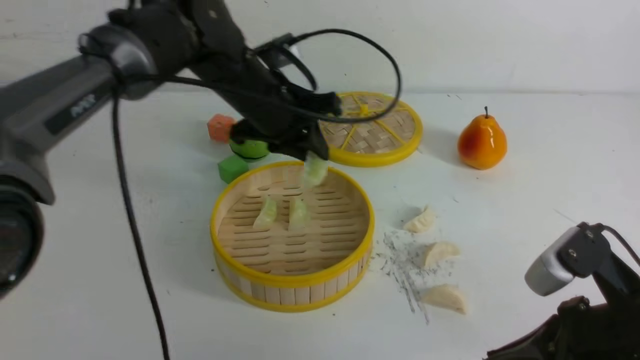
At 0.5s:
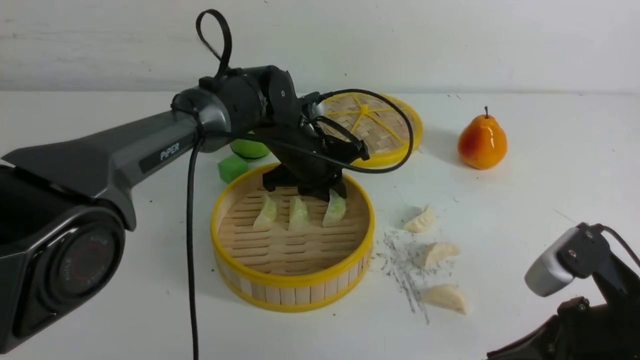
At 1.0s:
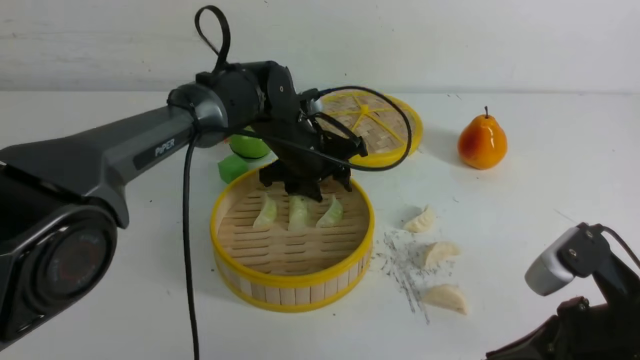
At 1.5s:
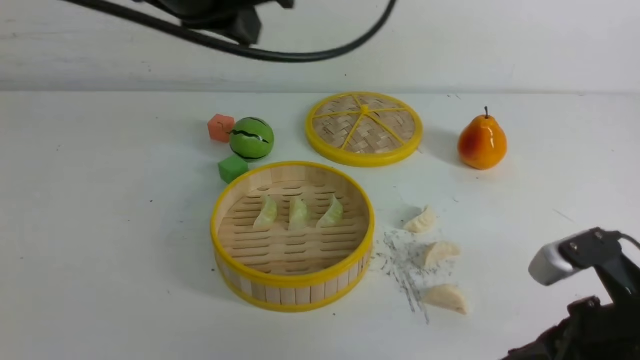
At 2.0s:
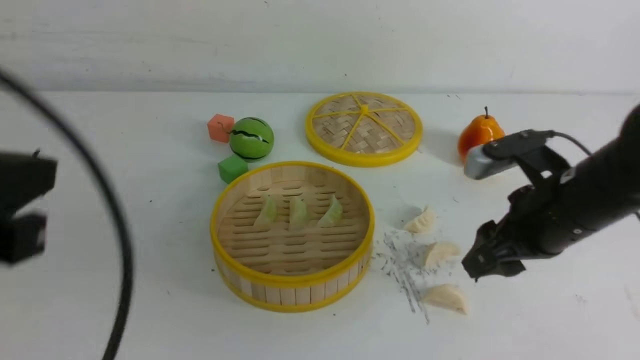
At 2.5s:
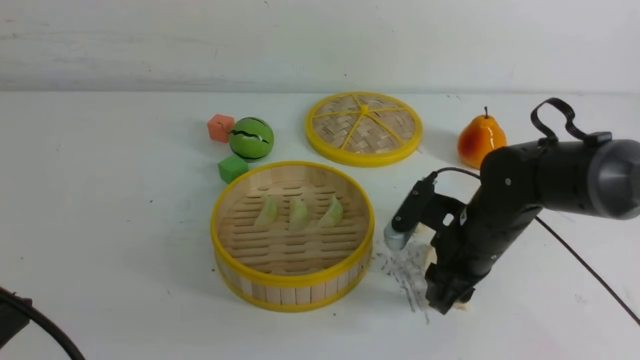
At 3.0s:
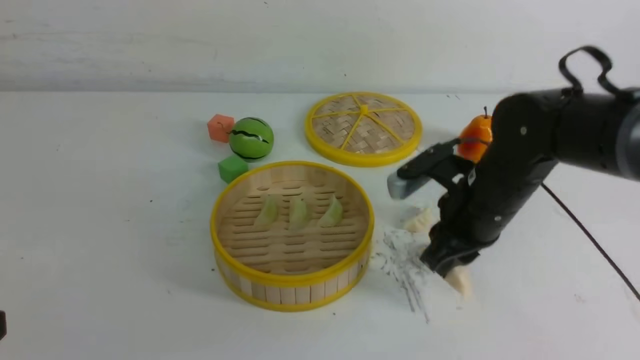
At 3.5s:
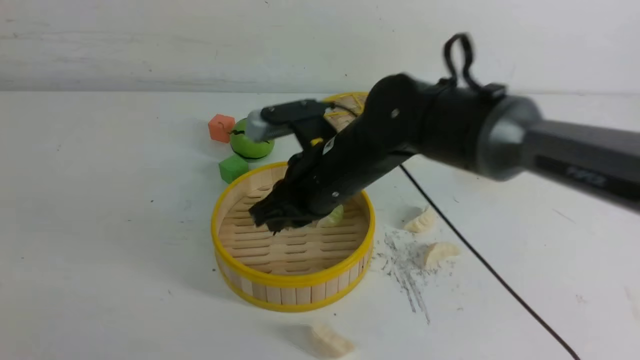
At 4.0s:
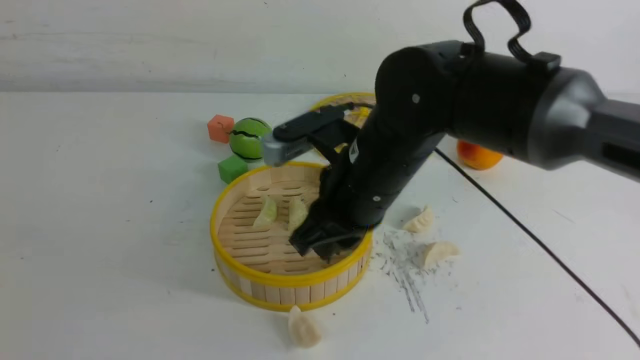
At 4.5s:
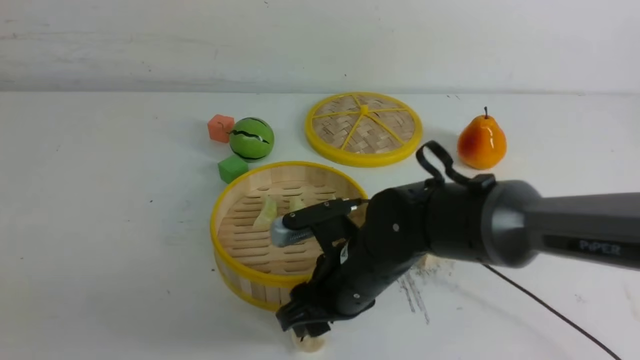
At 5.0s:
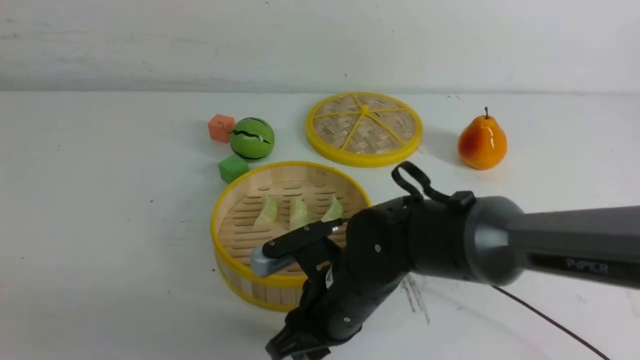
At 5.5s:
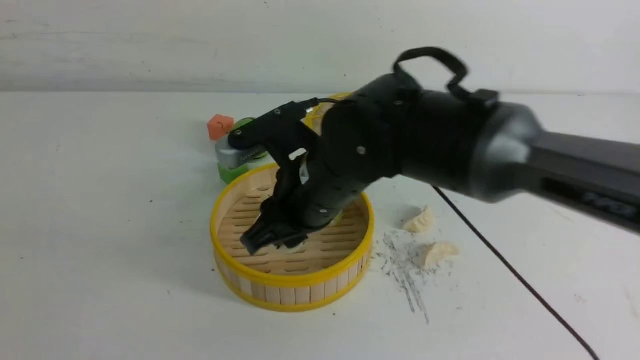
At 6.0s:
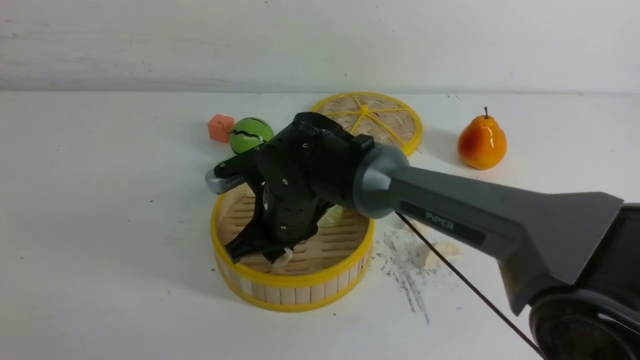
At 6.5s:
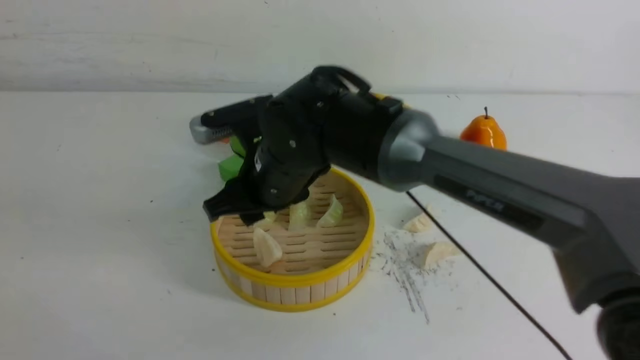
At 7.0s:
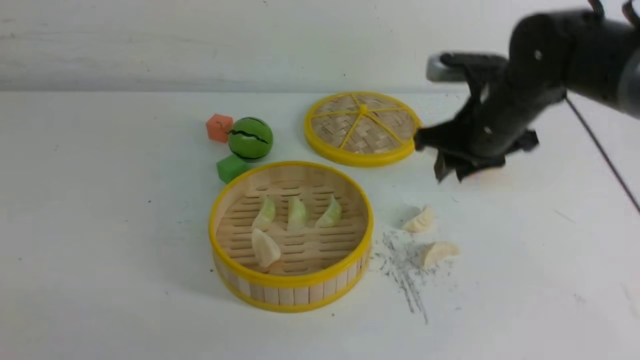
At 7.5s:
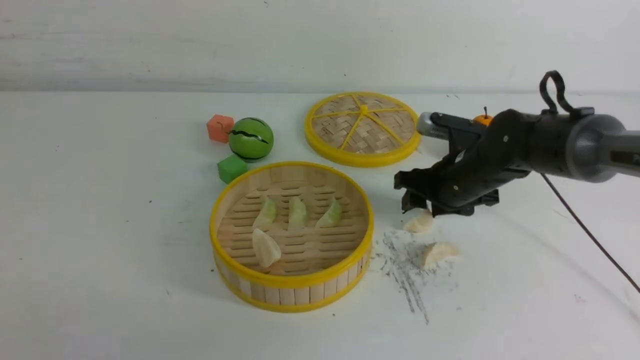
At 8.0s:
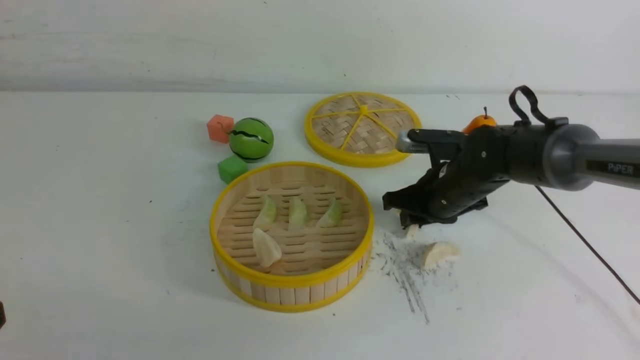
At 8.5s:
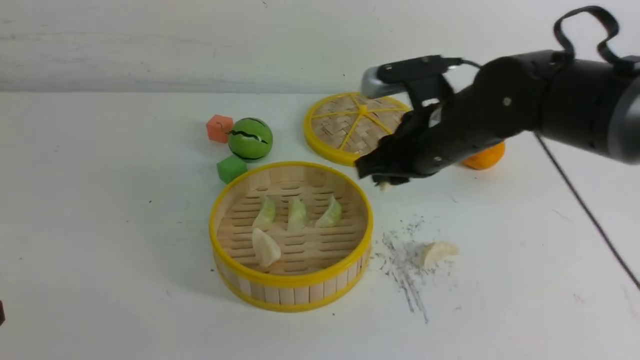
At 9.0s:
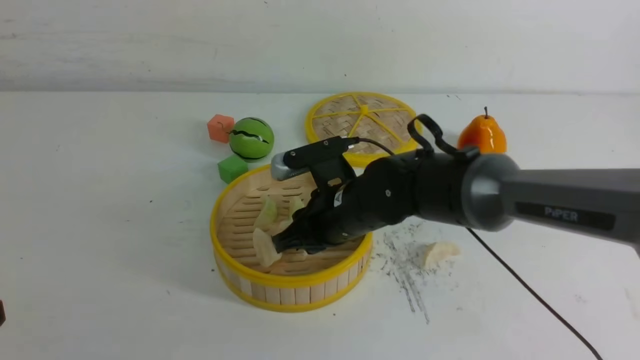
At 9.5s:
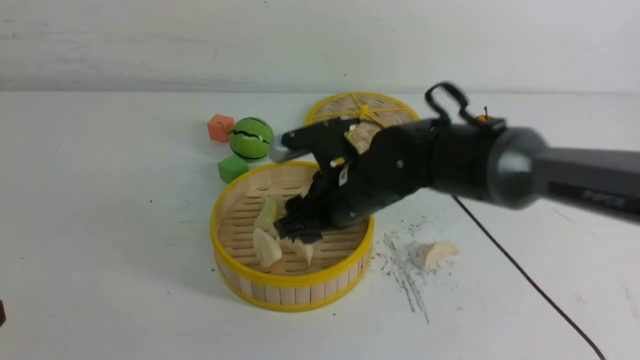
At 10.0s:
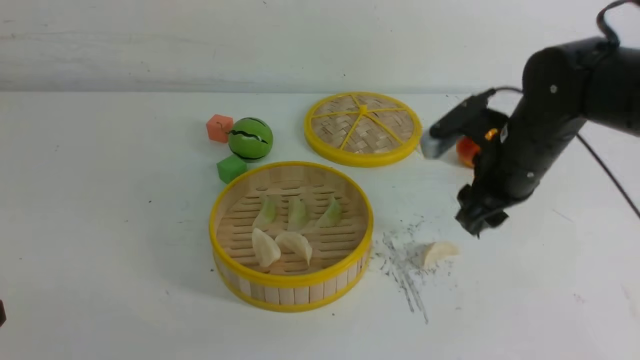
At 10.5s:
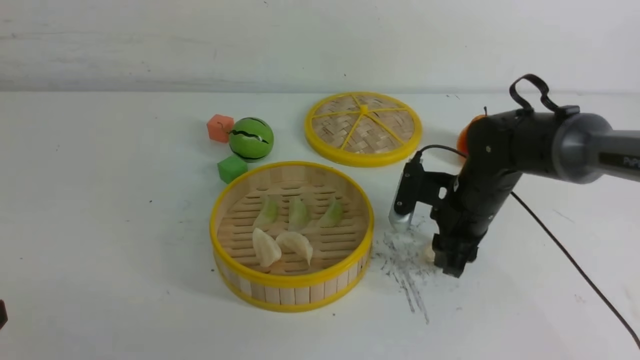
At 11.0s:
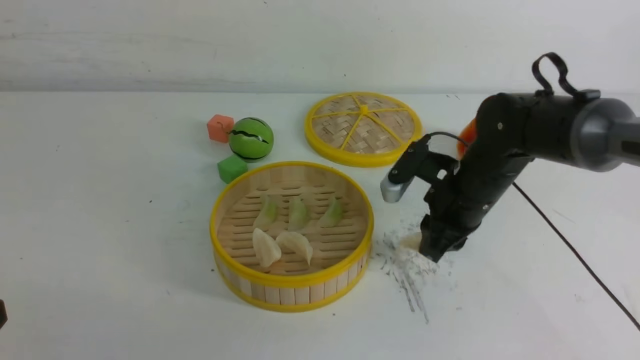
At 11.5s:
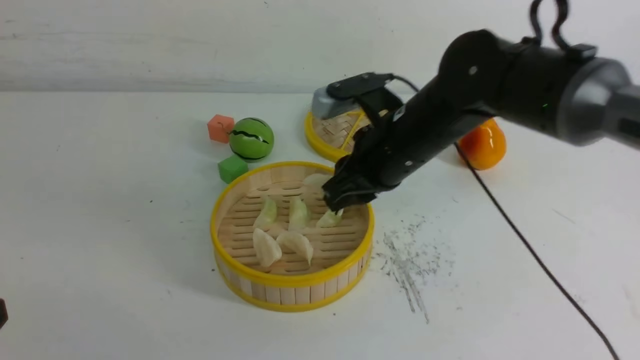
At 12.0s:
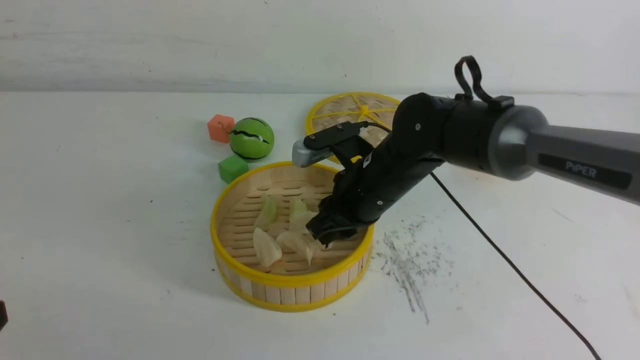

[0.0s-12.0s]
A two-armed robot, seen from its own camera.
Task of the whole recording: put the dumplings into the steamer on the white table.
Step, 0.0s to 1.0s: use the left arm to put the dumpling into the steamer.
Step, 1.5s to 2.5s: use the right arm to grab a dumpling.
Step, 3.0s to 6.5s: use the right arm to put the dumpling into the steamer.
Step, 7.0s to 8.0s: use the right arm to grab a dumpling.
Step, 8.5s to 9.0s: use the right arm to put the dumpling into the steamer.
Step, 10.0s to 10.5s: use the right arm to grab a dumpling.
0.0s to 2.0s: The left gripper heads backward and to the left, covering some 35 cm, and closes its fingers, while the right gripper goes approximately 15 cm forward, and opens its fingers.
2.0s to 4.0s: The right gripper travels to the left by about 15 cm, and closes its fingers. Meanwhile the left gripper heads downward and backward, covering some 15 cm.
4.0s to 6.0s: The right gripper goes about 10 cm to the left and downward.
6.0s to 8.0s: The right gripper heads to the right, covering roughly 20 cm.
8.0s to 10.0s: The right gripper travels upward by approximately 10 cm, travels to the left and back again, about 15 cm each way, and opens.
10.0s to 12.0s: The right gripper goes about 10 cm to the left, and closes up.

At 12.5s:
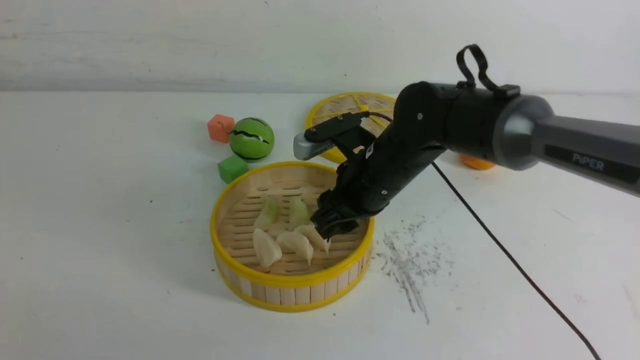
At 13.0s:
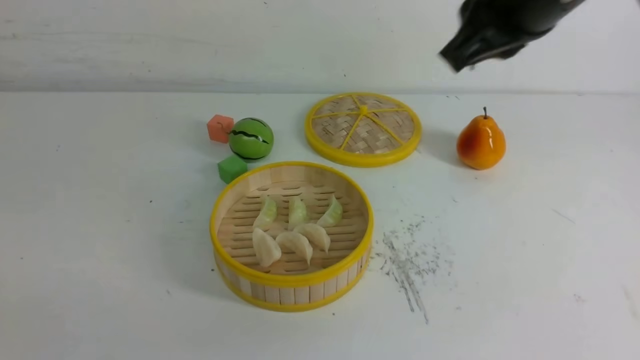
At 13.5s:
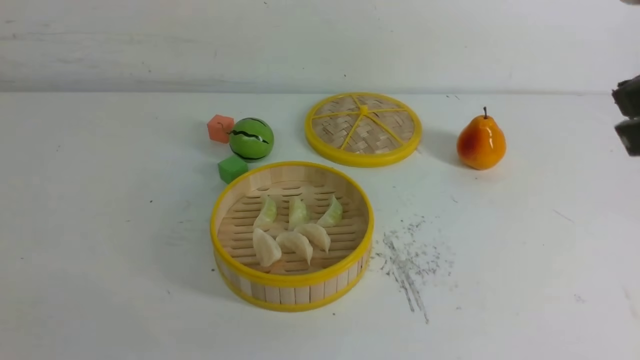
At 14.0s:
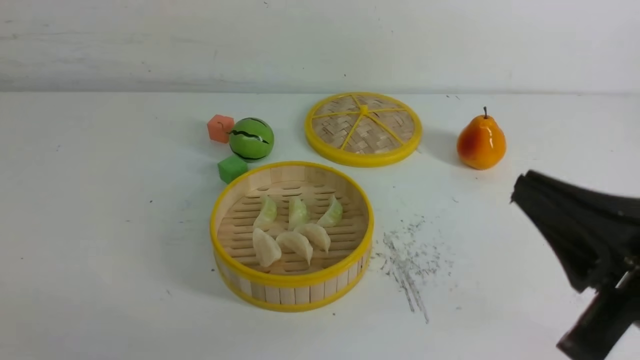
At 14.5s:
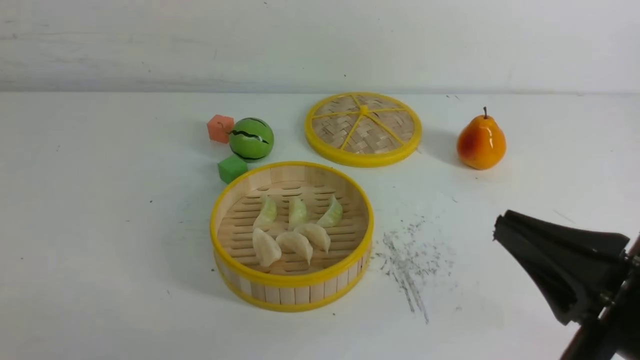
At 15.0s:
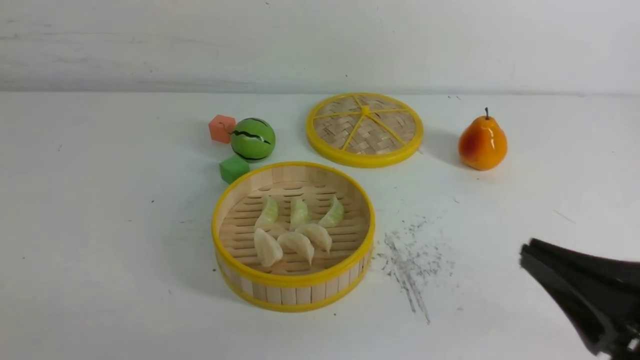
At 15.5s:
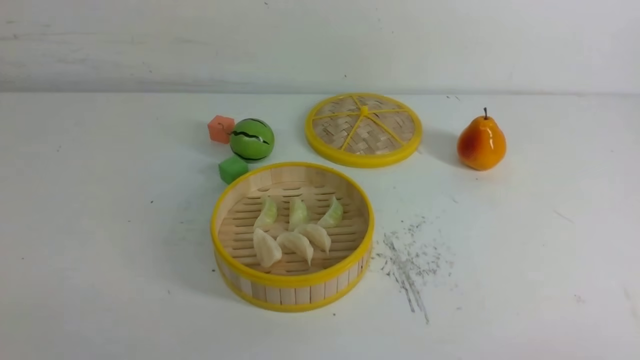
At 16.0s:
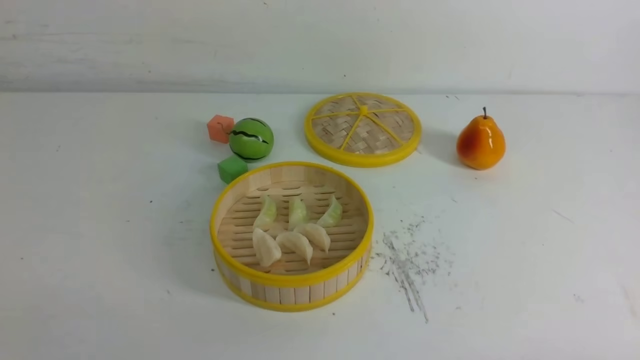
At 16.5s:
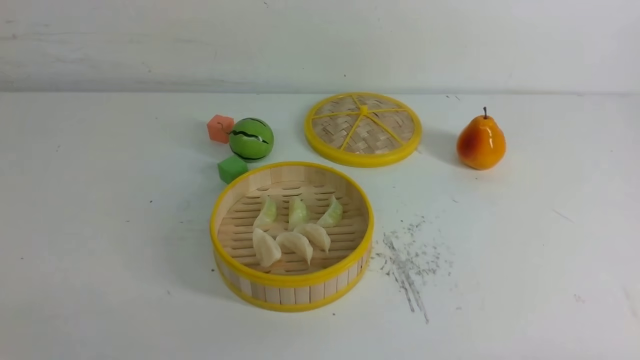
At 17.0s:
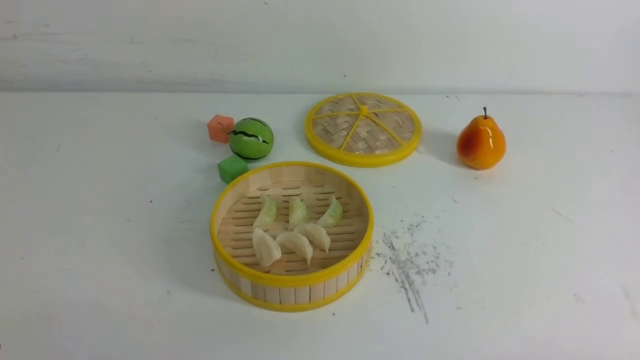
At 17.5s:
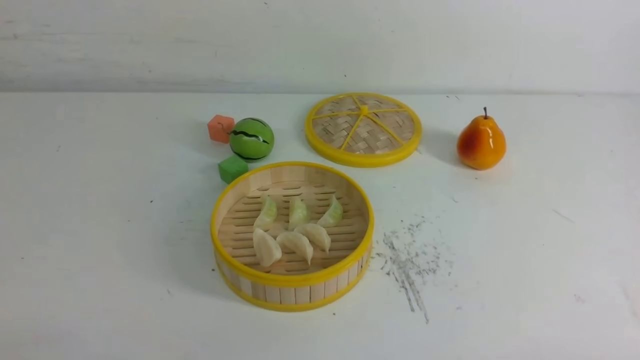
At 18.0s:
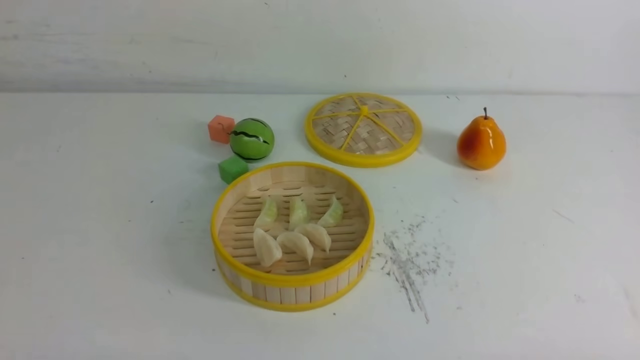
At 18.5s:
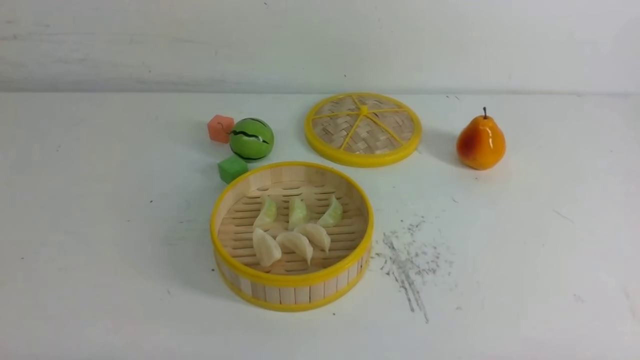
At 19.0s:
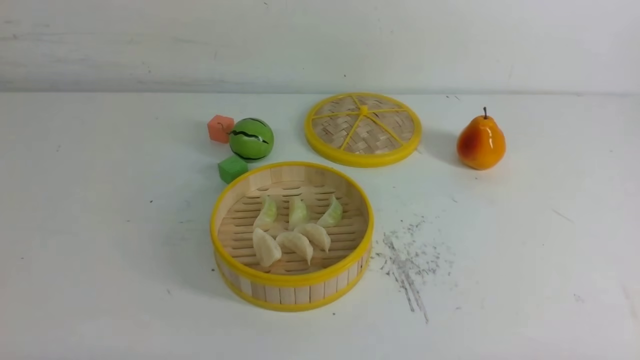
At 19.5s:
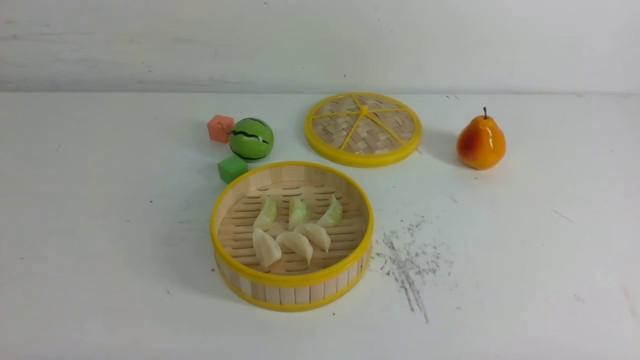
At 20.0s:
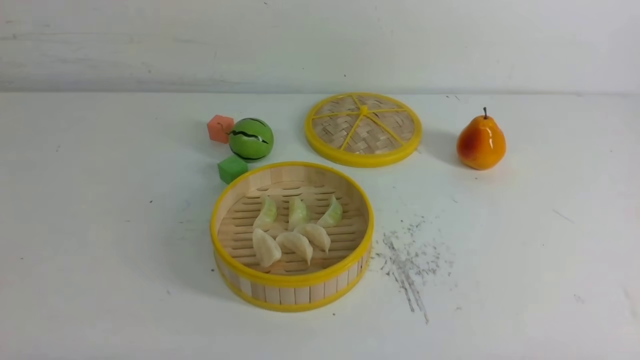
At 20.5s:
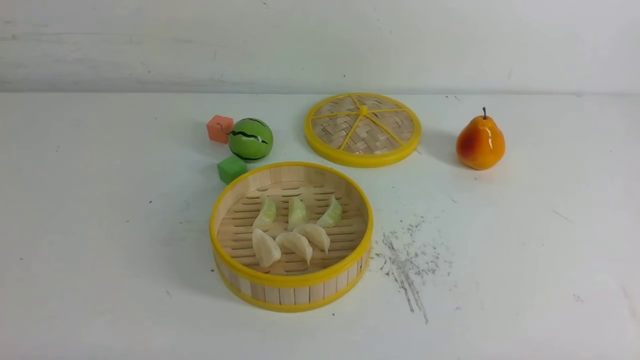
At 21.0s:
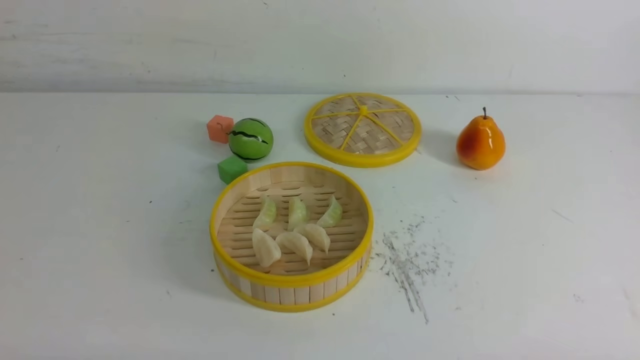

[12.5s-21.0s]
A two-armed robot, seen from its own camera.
Task of the whole recording: put the dumplings into the steamer on the white table.
12.5s to 14.5s: The right gripper goes approximately 30 cm backward and to the right, and closes its fingers.
14.5s to 16.5s: The right gripper is displaced downward, to the right and backward by approximately 15 cm.
19.0s to 21.0s: Both grippers stay put.
